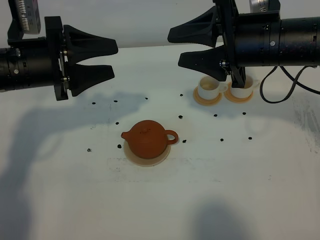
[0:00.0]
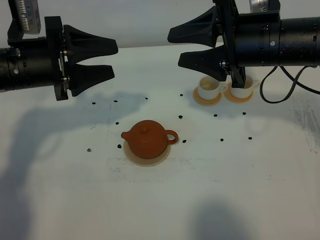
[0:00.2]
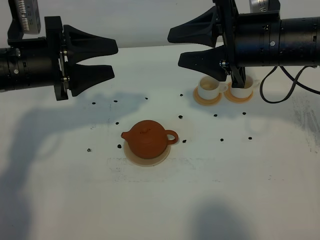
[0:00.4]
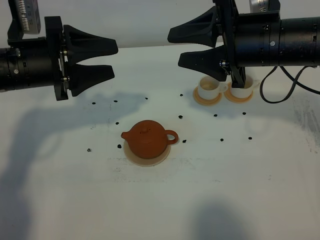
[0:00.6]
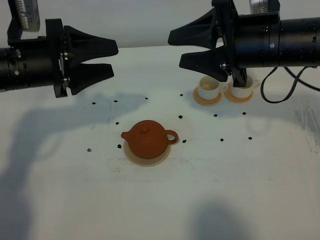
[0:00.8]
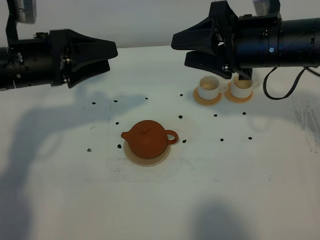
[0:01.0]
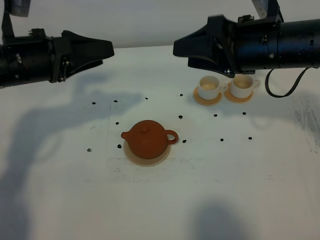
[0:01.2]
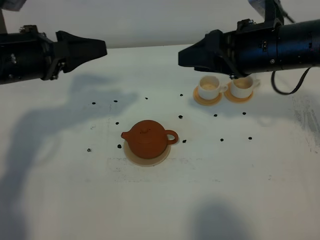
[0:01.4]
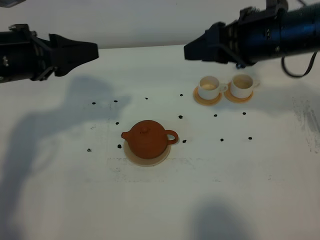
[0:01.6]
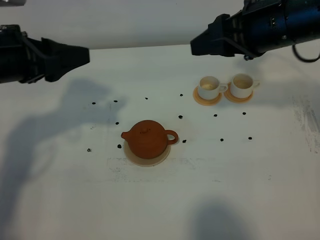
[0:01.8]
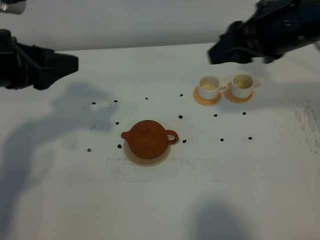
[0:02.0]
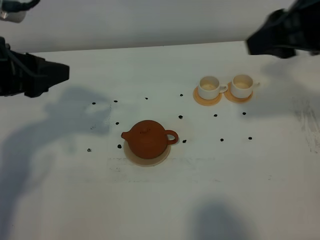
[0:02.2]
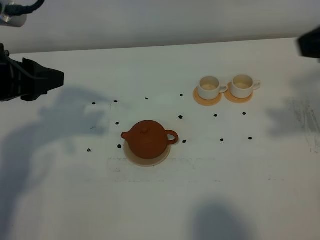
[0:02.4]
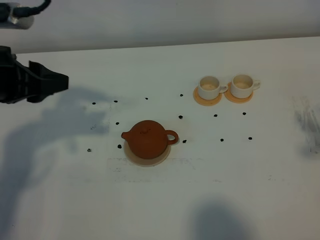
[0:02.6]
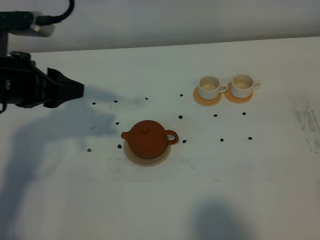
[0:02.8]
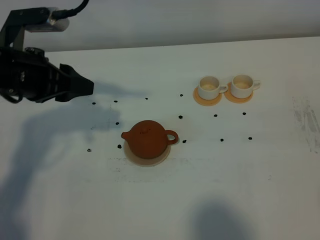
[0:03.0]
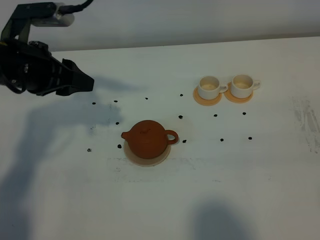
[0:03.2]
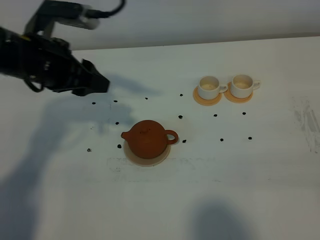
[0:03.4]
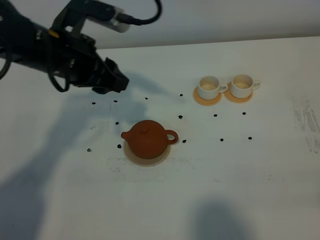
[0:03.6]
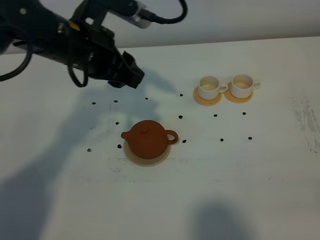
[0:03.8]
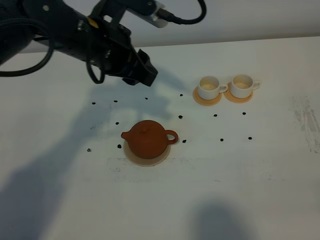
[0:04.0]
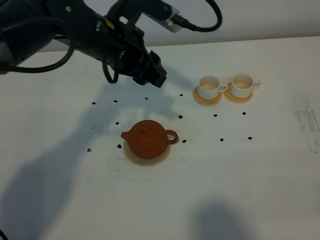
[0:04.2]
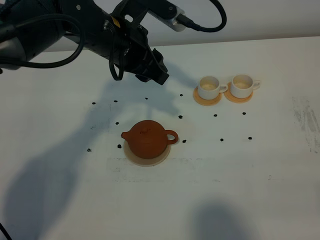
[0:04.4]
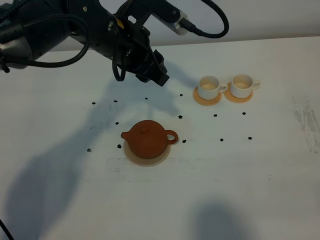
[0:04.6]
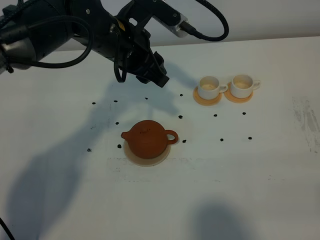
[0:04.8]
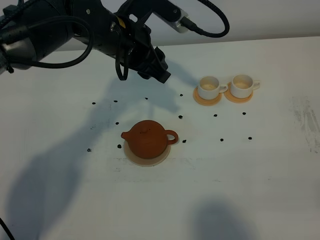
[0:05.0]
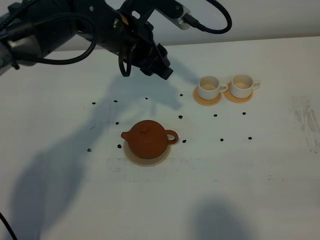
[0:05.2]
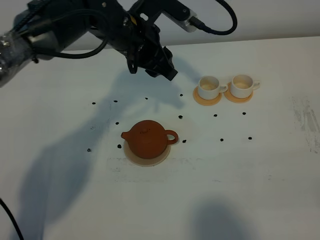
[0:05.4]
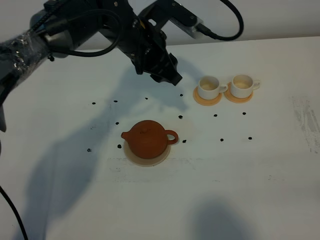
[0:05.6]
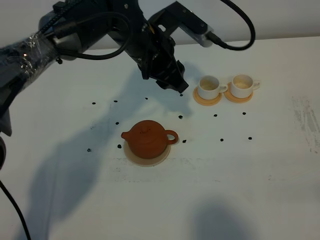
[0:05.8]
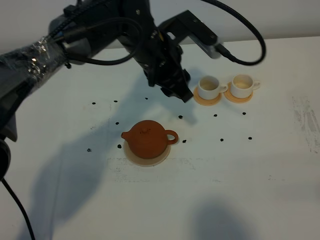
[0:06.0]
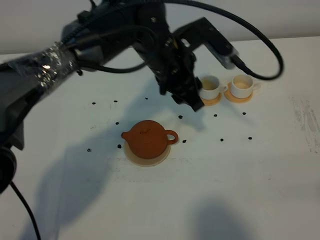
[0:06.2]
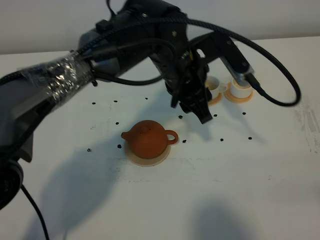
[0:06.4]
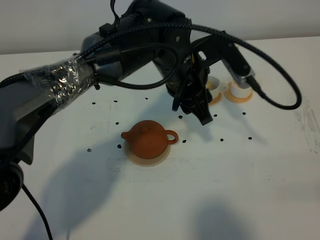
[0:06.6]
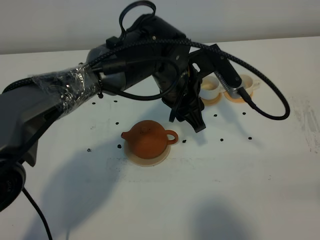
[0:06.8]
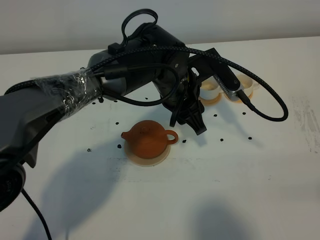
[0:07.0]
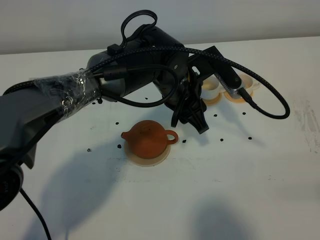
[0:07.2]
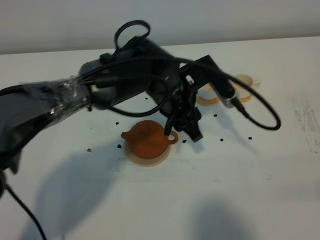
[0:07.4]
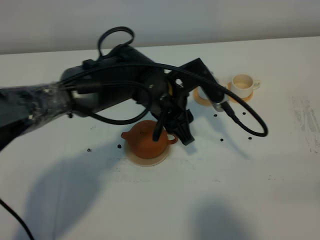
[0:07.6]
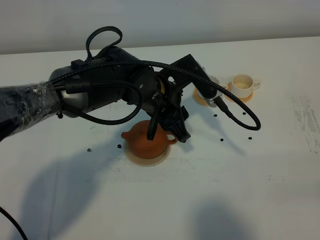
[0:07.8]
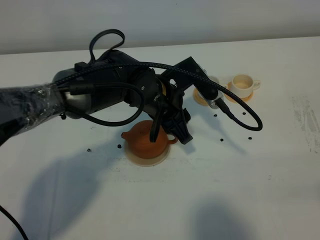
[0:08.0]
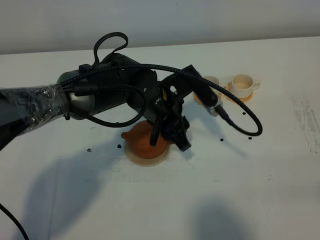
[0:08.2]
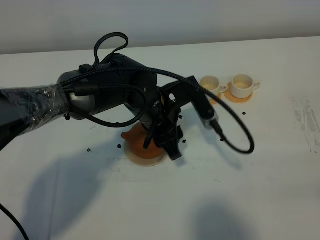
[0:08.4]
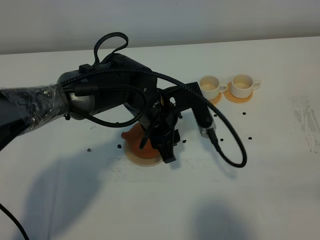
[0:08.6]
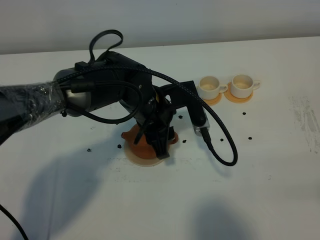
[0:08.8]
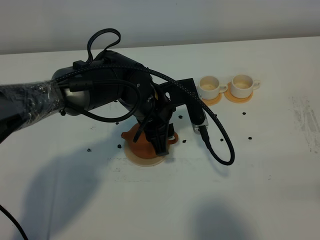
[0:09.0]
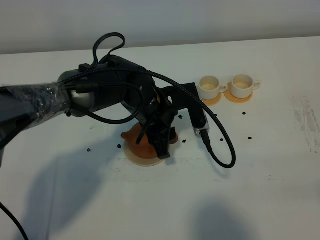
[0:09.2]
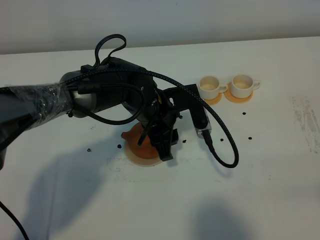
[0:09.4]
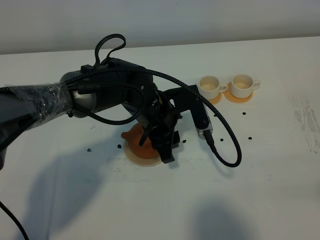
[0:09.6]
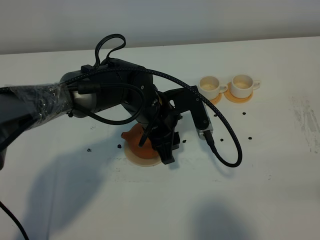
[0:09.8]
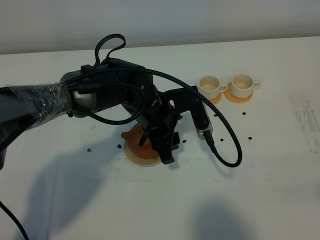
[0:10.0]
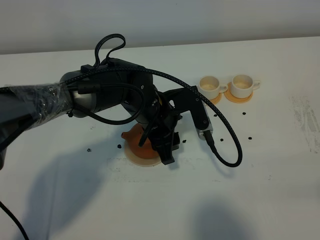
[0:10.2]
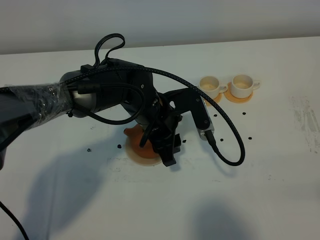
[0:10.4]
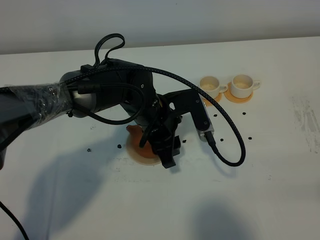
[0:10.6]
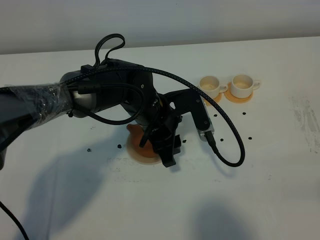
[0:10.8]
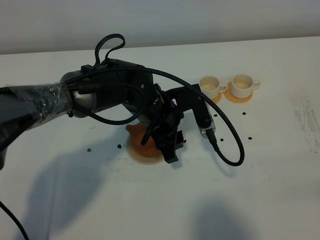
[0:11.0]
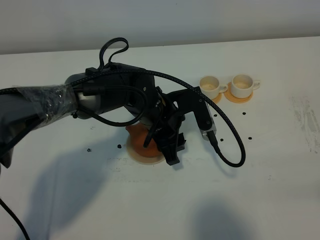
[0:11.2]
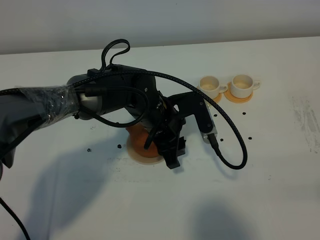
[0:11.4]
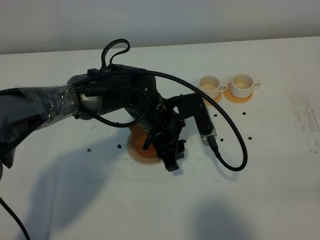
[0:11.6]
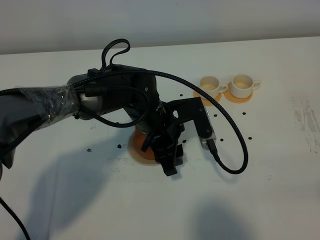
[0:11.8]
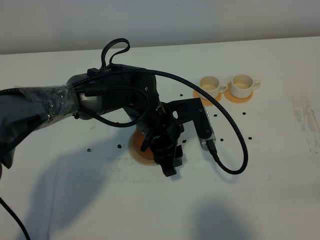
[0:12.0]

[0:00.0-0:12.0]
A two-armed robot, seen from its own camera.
Task of the whole recording: grasp the brown teapot and pour the tea into the two white teacups one by one, put the brown teapot back in its original place.
0:01.6 to 0:03.0: The right gripper travels backward by approximately 30 cm.
0:03.0 to 0:04.4: The left gripper moves to the right and forward, roughly 15 cm; the right gripper goes about 15 cm downward.
0:04.4 to 0:06.0: The left gripper moves to the right, approximately 5 cm.
0:06.0 to 0:07.6: The left gripper goes some 5 cm backward and downward.
0:07.6 to 0:10.4: The grippers move only a little.
0:10.4 to 0:12.0: The grippers move only a little.

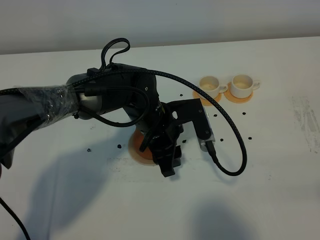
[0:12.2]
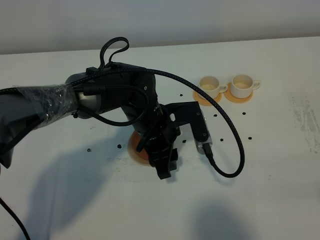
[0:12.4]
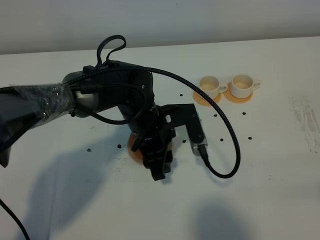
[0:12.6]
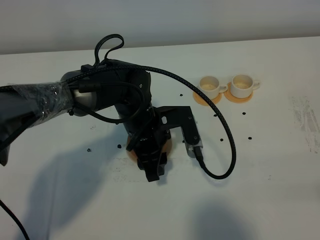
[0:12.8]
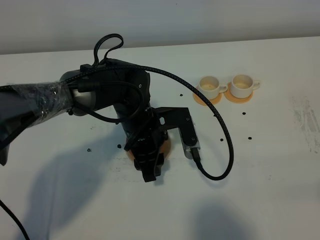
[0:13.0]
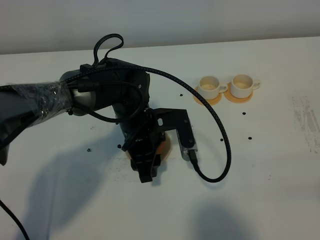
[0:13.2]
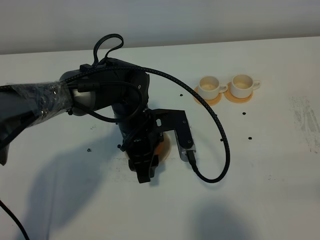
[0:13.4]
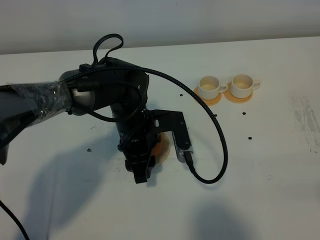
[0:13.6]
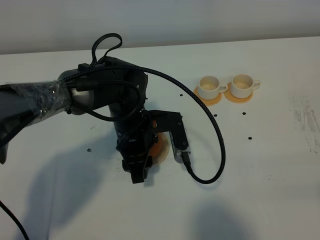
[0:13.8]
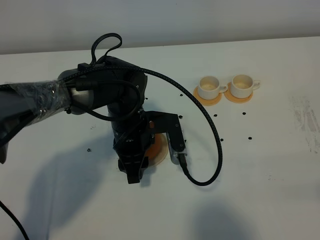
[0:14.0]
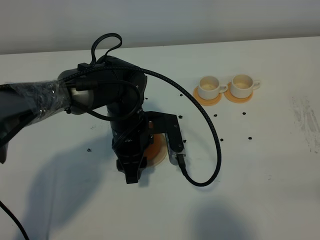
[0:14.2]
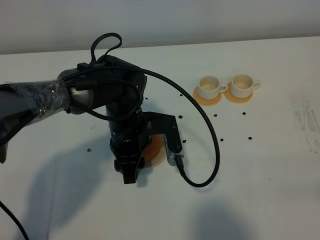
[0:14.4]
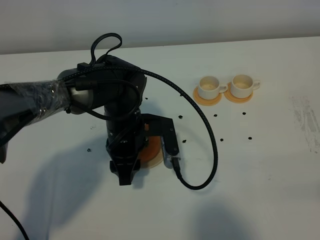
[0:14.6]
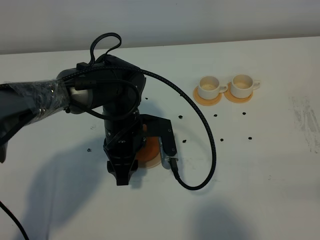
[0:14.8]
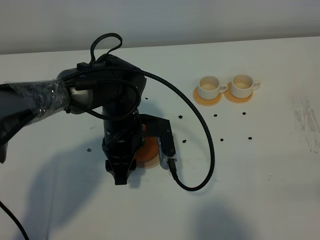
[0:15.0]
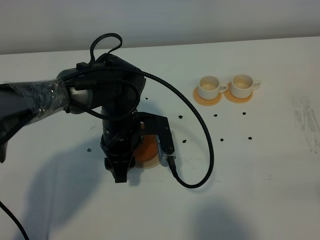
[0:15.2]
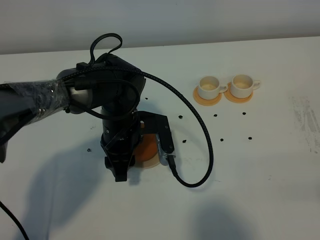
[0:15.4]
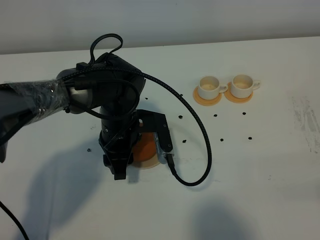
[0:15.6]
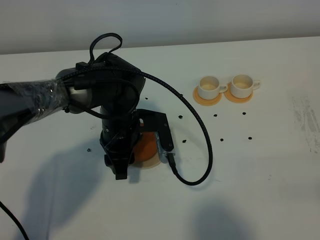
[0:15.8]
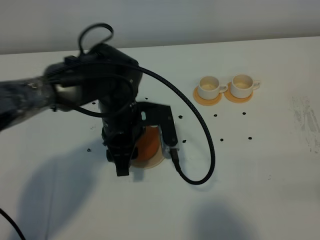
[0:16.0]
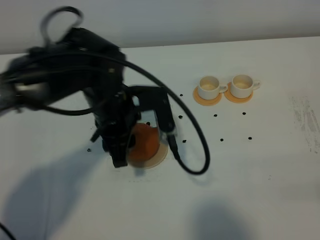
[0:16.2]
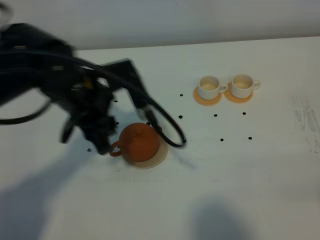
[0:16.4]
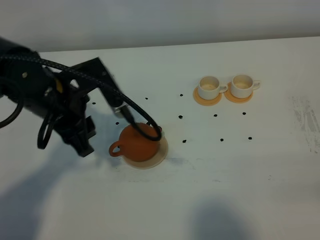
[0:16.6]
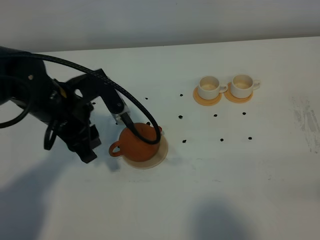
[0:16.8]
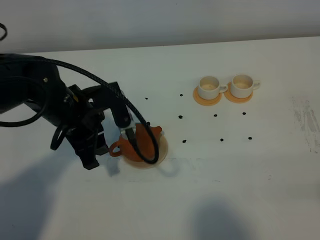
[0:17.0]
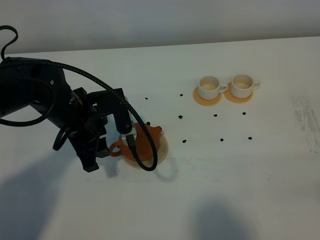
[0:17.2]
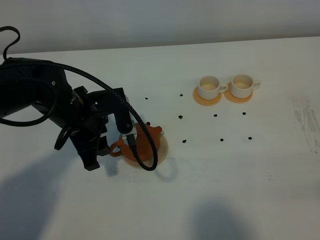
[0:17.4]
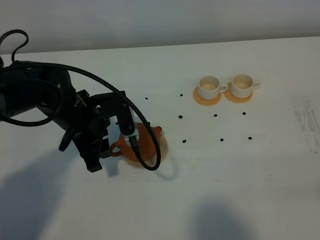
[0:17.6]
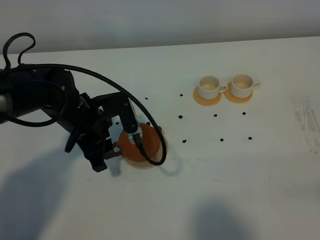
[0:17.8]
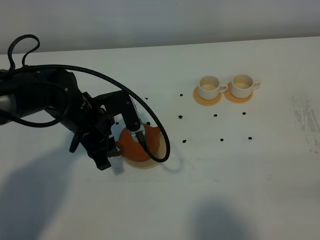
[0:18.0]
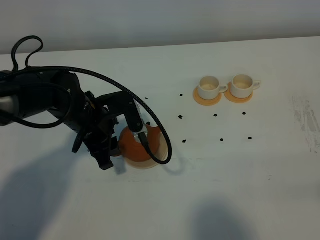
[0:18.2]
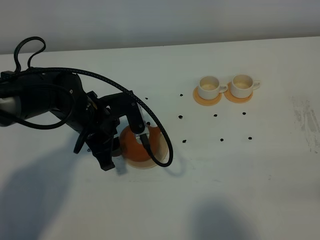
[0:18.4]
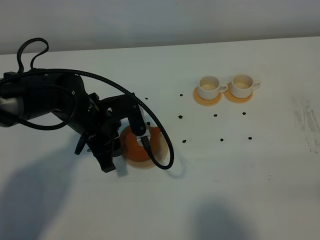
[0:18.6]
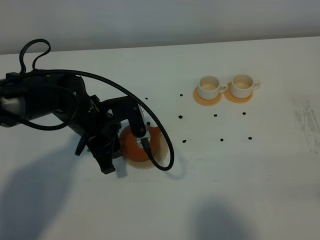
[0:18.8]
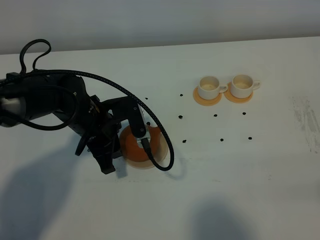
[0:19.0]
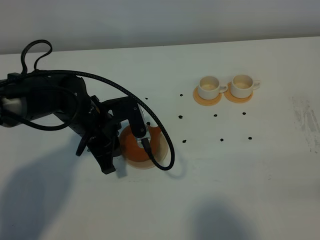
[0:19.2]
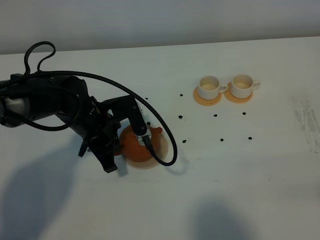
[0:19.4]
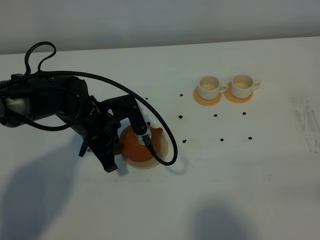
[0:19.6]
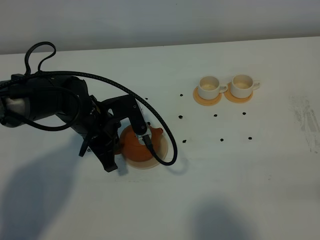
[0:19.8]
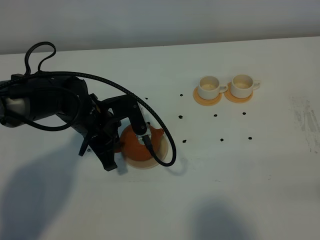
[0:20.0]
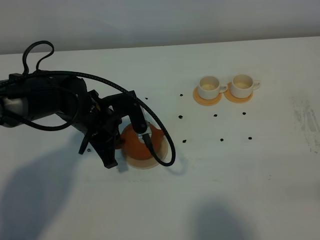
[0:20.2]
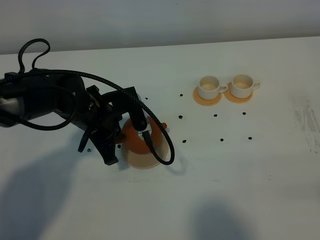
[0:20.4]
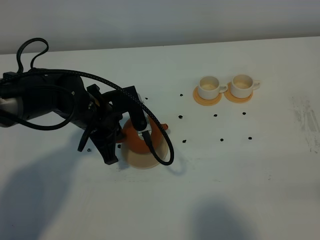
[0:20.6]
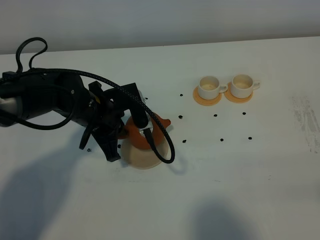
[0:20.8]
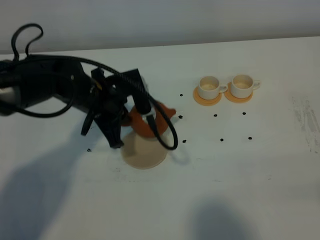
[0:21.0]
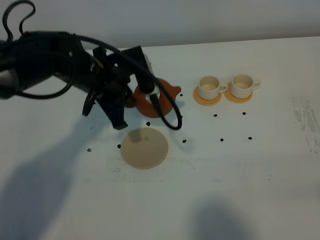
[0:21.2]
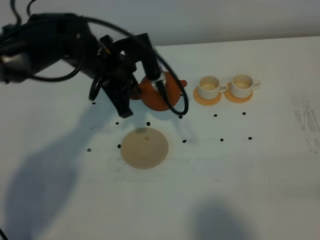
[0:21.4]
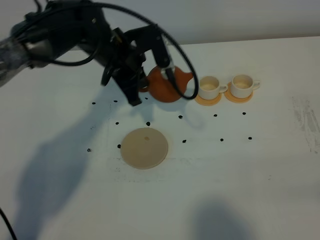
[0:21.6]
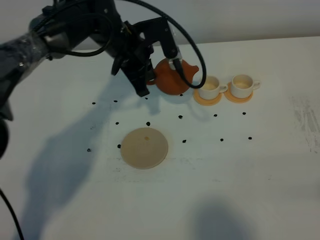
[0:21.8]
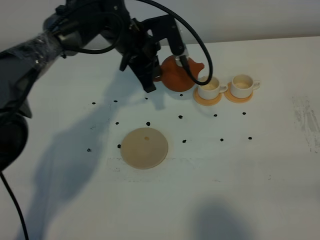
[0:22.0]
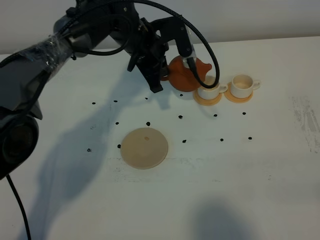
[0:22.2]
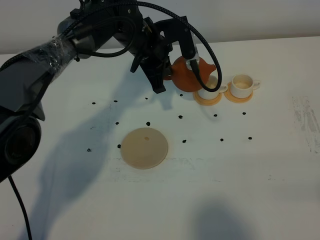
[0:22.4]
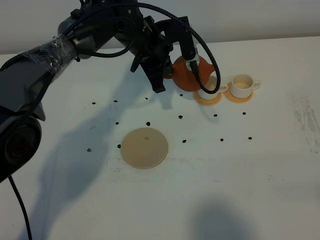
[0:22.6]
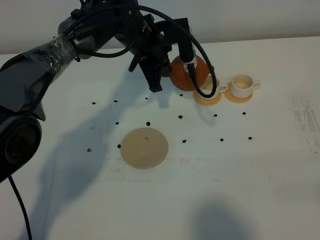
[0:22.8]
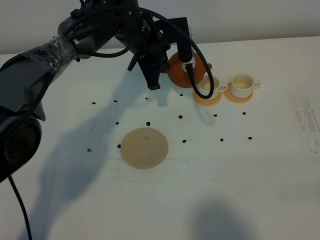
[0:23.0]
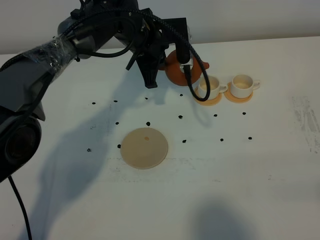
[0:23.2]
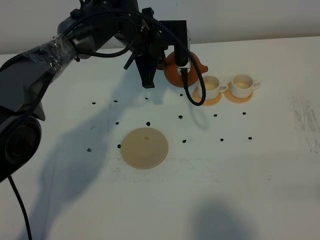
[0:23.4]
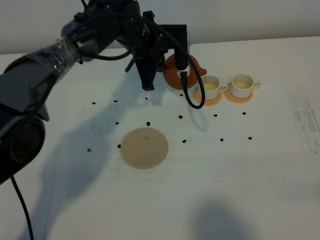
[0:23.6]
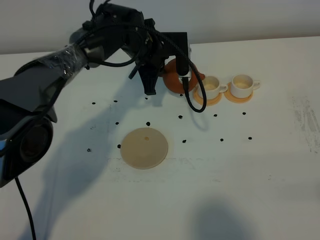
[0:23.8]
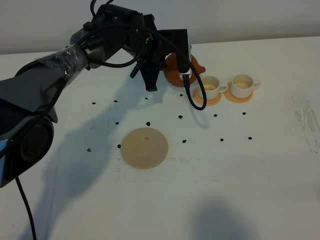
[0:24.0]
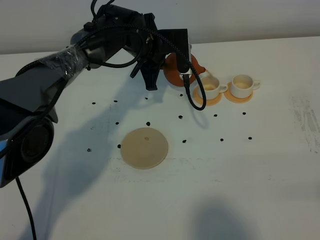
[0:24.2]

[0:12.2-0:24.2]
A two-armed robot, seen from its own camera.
Task of the whole recording: grasp the brown teapot and pour the tea into the two white teacups one by one, put the brown teapot back in its original place.
Step, 0:12.2 to 0:20.8: Pick up the teapot with the left gripper.
0:12.2 to 0:13.8: There are only small adjustments of the grippers.
0:13.8 to 0:15.2: There are only small adjustments of the grippers.
0:15.2 to 0:16.6: The left gripper goes roughly 15 cm upward and to the left.
0:16.6 to 0:18.2: The left gripper shifts roughly 10 cm downward.
0:18.2 to 0:19.8: The left gripper closes.
0:19.8 to 0:21.2: The left gripper moves upward, some 10 cm.
0:21.2 to 0:22.6: The left gripper goes approximately 10 cm forward and to the right.
0:22.6 to 0:24.2: The grippers move only a little.
